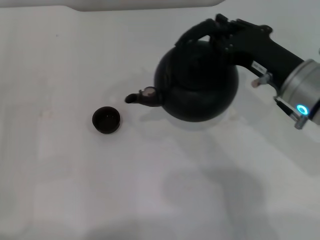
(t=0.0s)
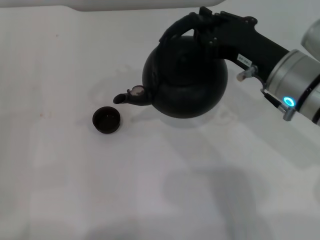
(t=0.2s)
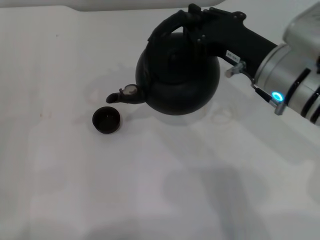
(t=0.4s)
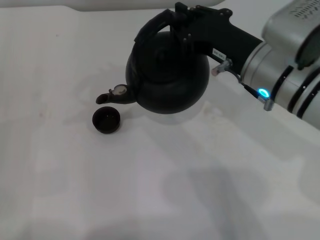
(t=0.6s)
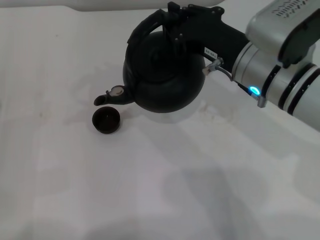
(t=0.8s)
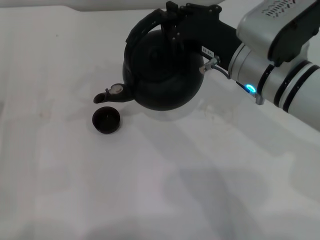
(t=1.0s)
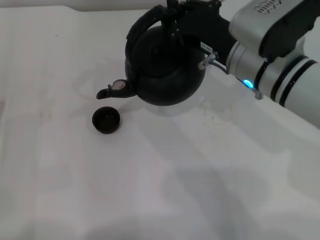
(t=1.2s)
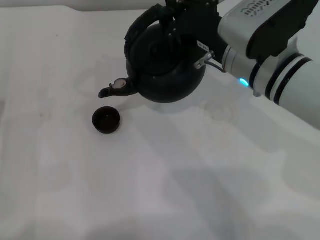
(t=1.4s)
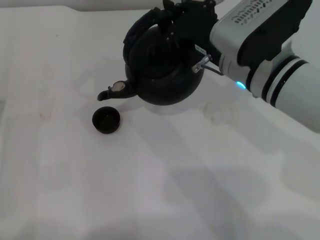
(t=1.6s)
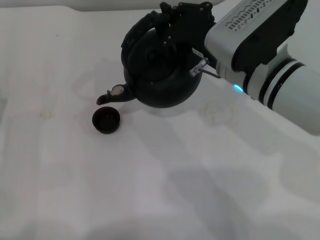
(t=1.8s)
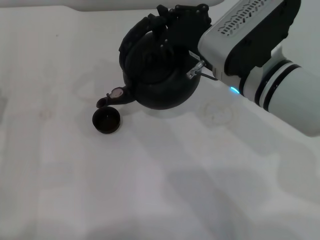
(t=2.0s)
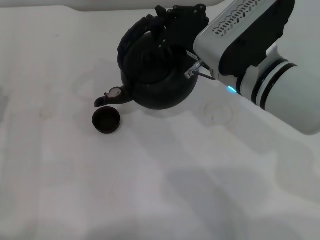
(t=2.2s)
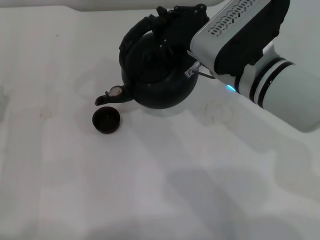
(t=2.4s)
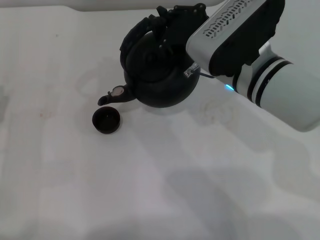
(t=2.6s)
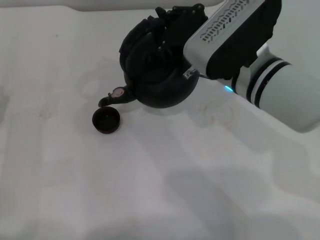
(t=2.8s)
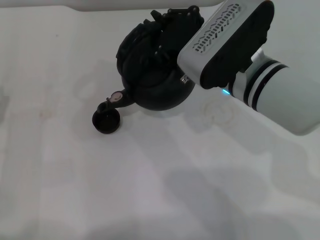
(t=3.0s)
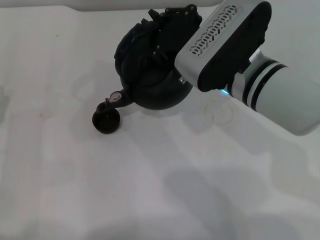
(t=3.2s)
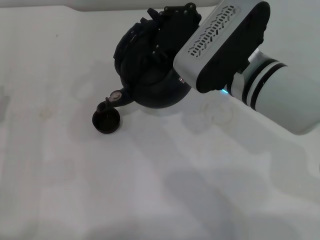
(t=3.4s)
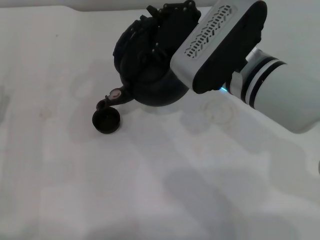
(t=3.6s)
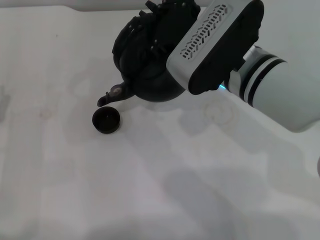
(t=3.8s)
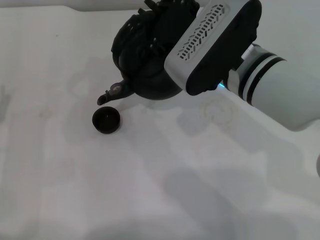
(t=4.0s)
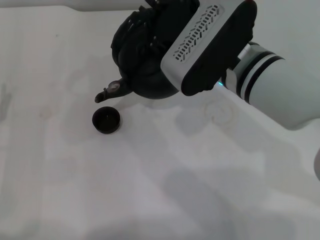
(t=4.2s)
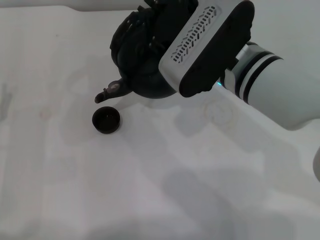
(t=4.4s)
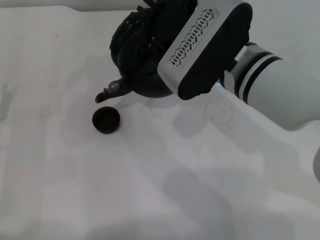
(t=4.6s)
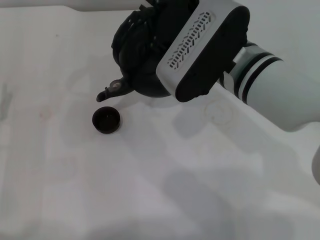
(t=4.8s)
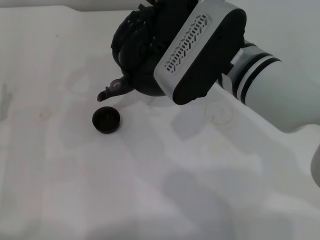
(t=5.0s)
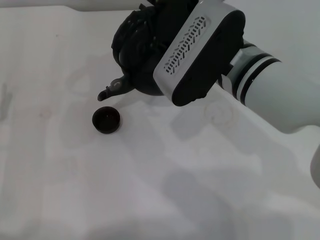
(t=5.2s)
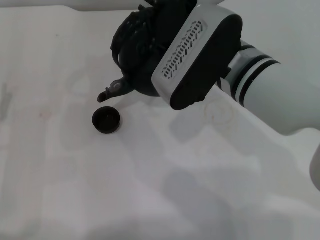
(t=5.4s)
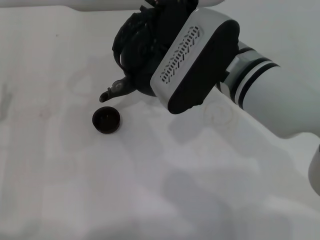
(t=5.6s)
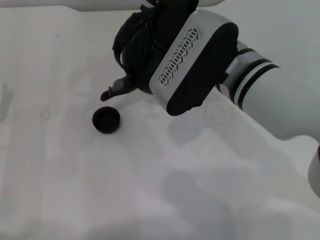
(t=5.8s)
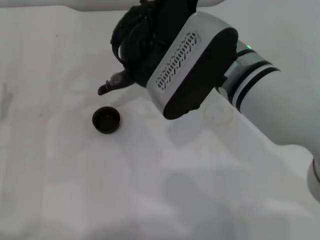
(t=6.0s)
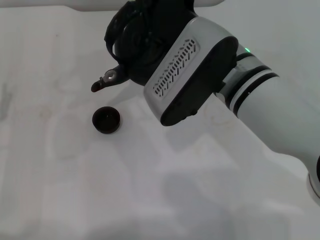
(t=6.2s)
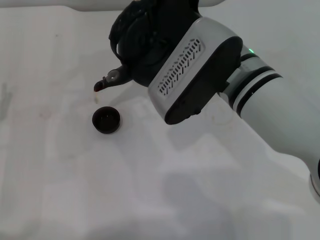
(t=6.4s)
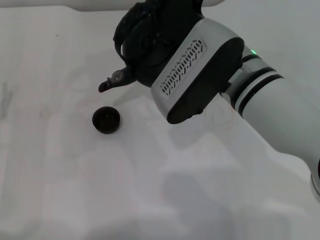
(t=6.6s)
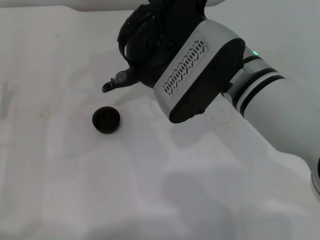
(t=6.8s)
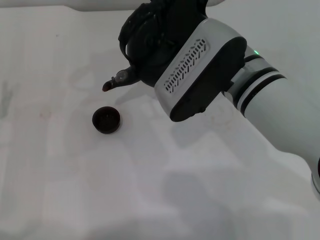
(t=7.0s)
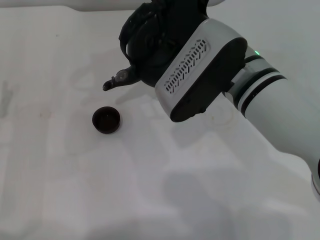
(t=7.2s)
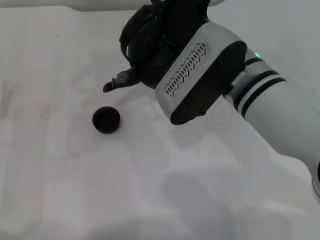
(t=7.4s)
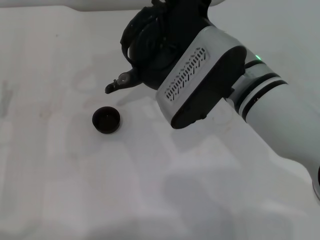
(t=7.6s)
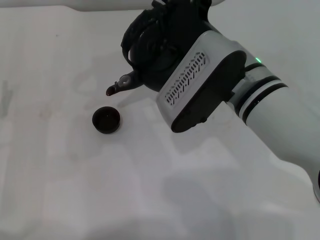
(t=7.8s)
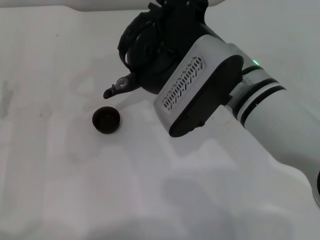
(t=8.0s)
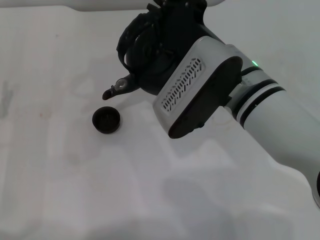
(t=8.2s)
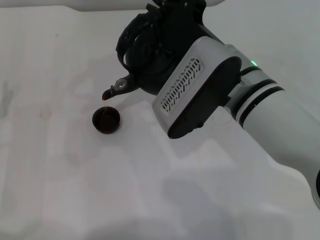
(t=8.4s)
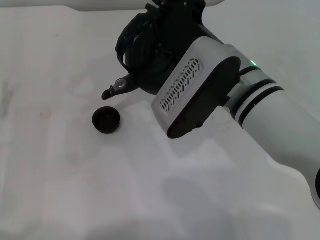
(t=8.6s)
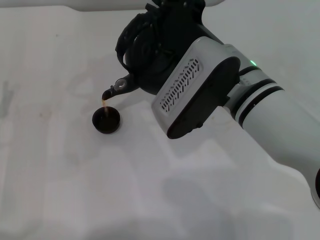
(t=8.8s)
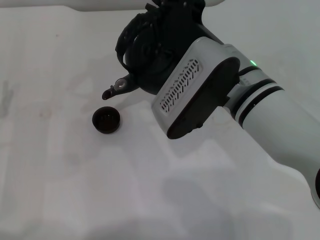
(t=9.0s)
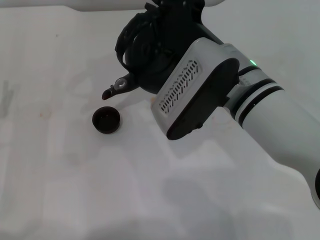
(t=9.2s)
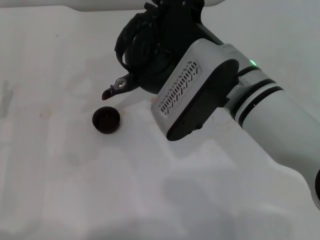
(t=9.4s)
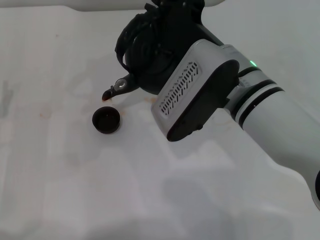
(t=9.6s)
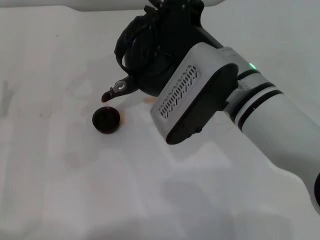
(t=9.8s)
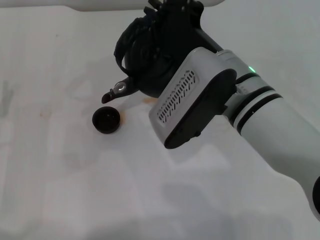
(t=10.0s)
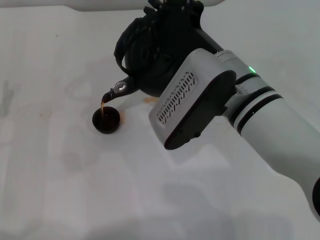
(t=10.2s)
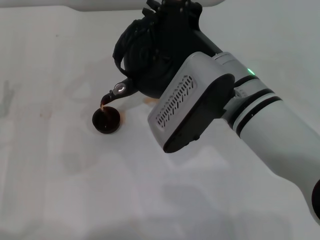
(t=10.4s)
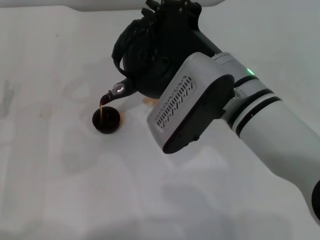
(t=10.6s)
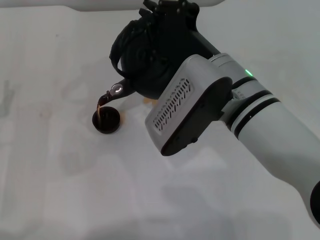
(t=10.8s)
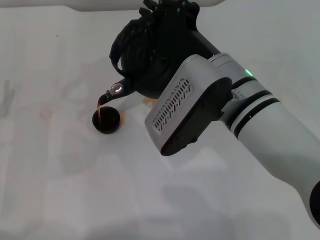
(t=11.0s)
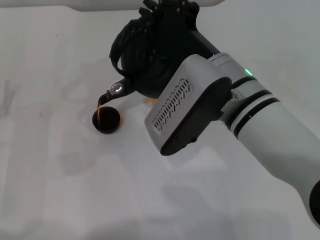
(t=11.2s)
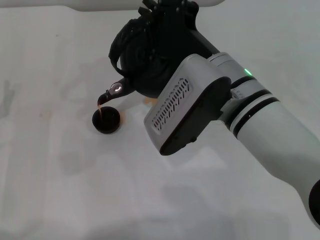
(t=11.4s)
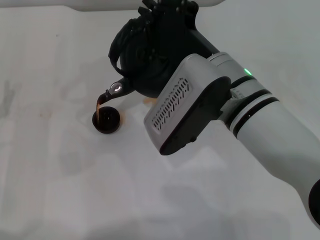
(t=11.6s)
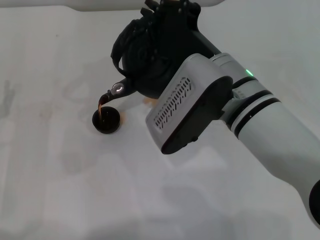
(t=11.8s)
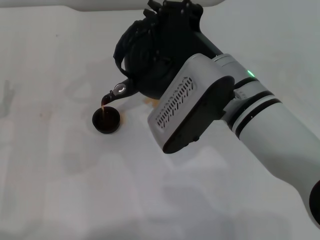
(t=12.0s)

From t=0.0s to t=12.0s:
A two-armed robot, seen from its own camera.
Task of the whole recording: Grasp the handle of the teapot with one hand and pour tea into the teacup.
From t=0.0s to t=1.6s: The right gripper shifts some 5 cm to the left.
From t=1.6s to t=3.0s: There are only small adjustments of the grippers.
From t=3.0s to t=4.4s: The grippers make only small movements.
From t=4.4s to t=7.6s: The grippers stay close to where they were, moving slightly.
From t=7.6s to t=9.0s: Neither gripper changes place.
From t=9.0s to t=12.0s: Neither gripper changes place.

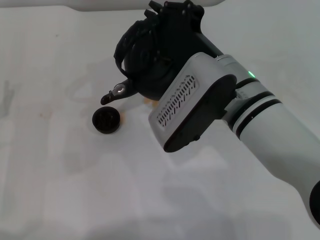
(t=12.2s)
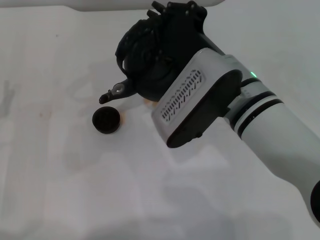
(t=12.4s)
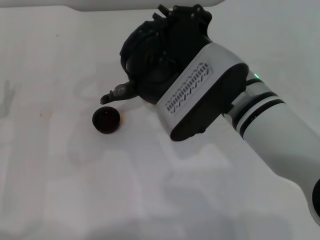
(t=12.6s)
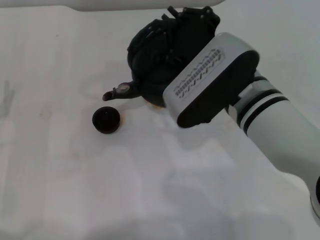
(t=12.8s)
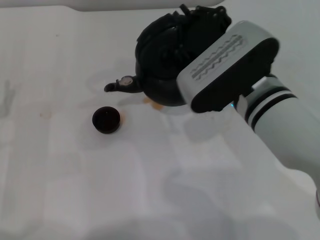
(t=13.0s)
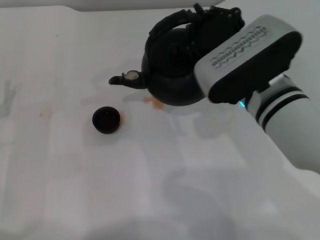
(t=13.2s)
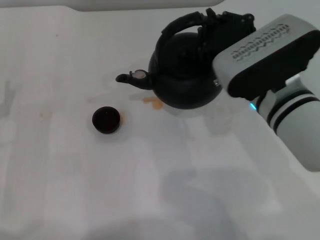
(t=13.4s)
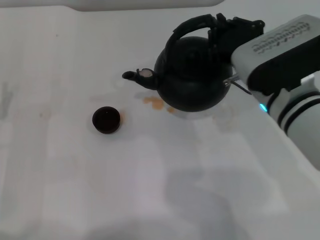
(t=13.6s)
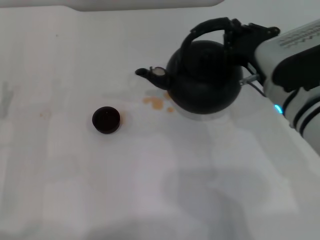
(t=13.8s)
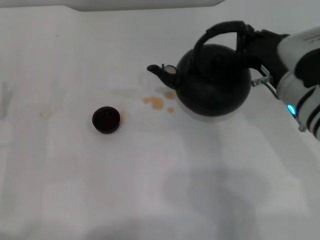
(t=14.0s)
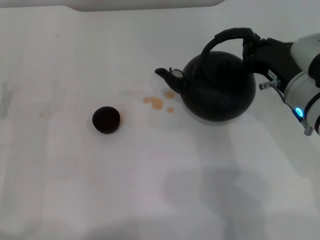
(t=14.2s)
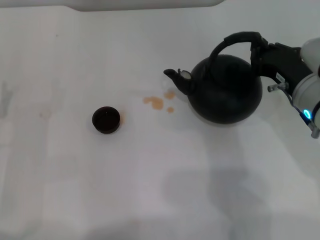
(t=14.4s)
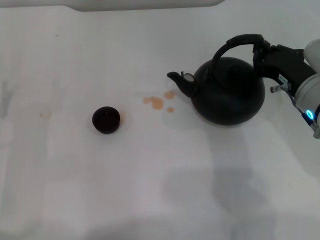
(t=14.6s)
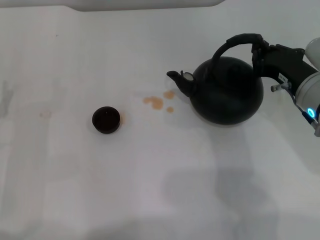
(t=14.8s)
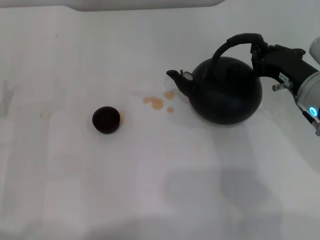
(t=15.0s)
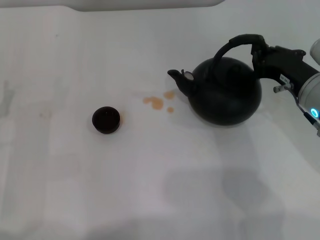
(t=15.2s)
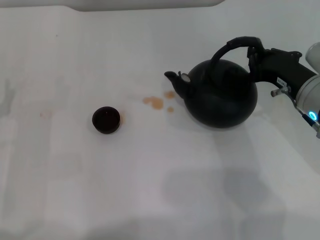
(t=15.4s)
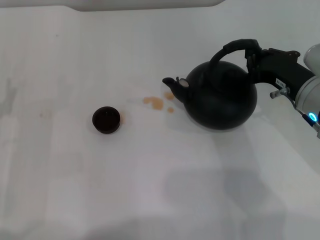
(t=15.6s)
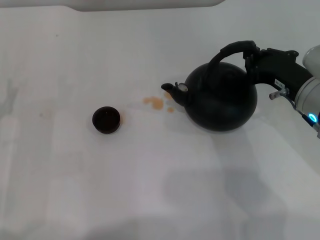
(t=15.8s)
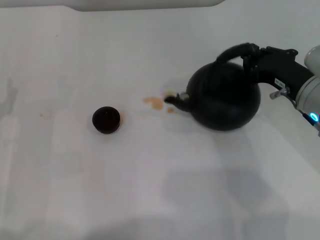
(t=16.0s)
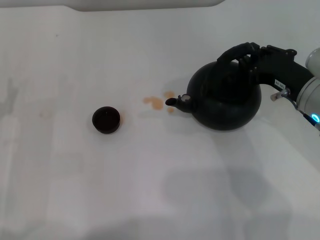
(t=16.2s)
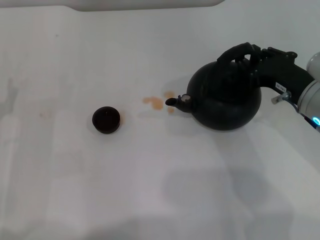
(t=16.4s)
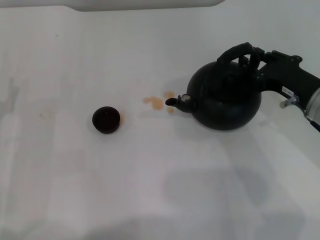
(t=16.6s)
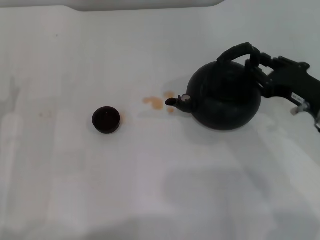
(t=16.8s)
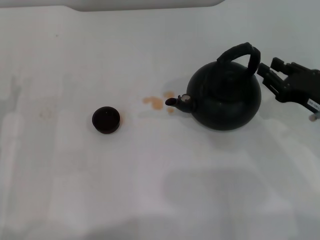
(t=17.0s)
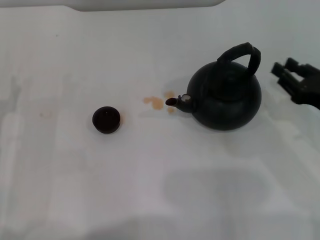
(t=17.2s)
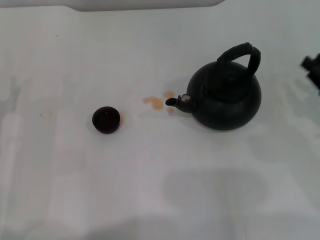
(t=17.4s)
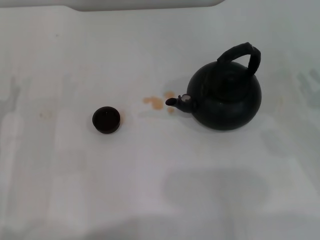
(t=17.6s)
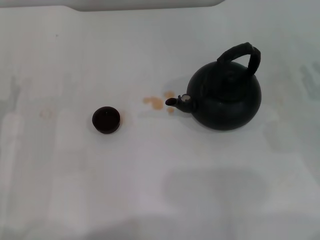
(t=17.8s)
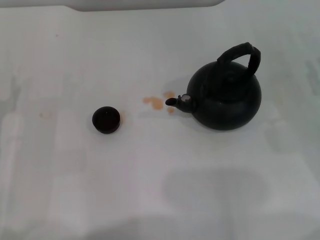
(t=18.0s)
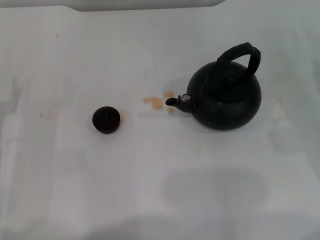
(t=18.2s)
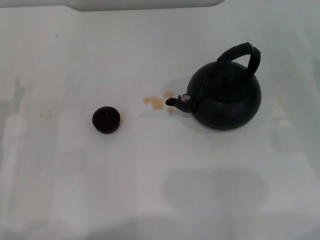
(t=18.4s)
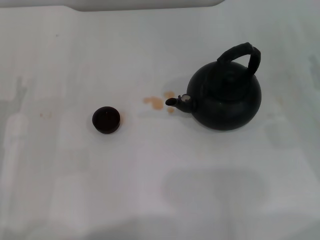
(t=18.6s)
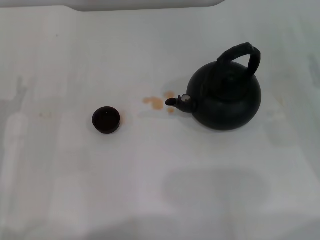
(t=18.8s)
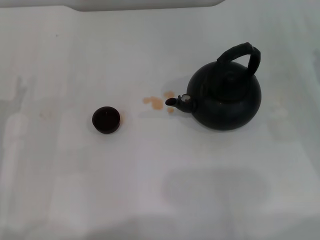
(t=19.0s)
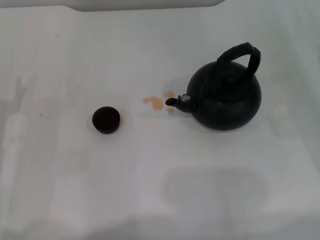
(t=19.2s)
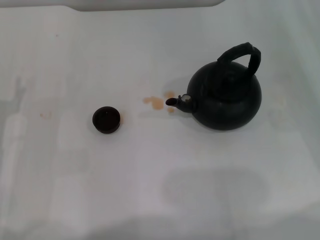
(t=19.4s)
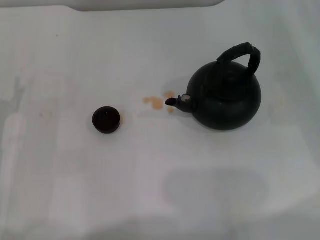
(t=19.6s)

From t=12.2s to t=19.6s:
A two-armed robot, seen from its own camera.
Task of the whole recording: Grasp the handle of the teapot with one hand and pour tea into the teacup.
Step, from t=13.0s to t=17.0s: Put down the teapot with the right gripper.
From t=12.2s to t=13.6s: The right gripper goes roughly 5 cm to the right.
From t=13.6s to t=15.2s: The right gripper goes approximately 10 cm to the right.
From t=15.2s to t=16.6s: The right gripper opens.
From t=16.6s to t=18.2s: The right gripper heads to the right, covering approximately 10 cm.
